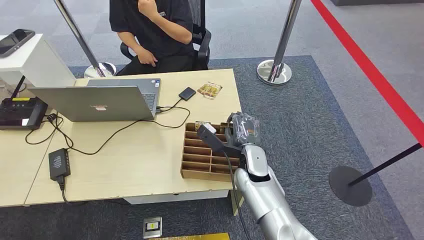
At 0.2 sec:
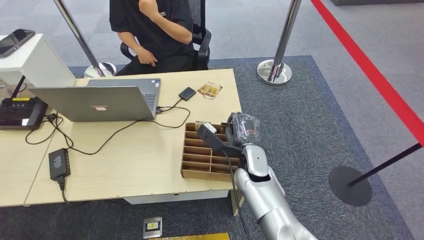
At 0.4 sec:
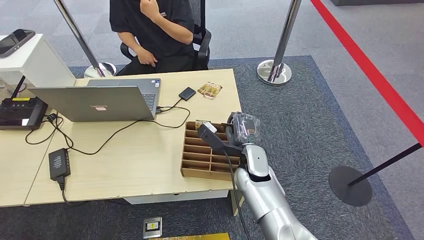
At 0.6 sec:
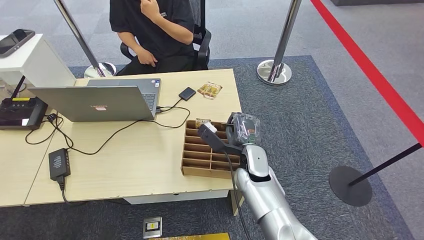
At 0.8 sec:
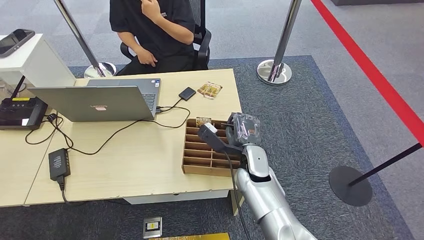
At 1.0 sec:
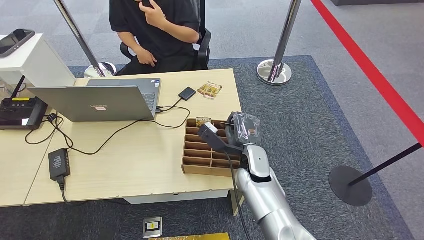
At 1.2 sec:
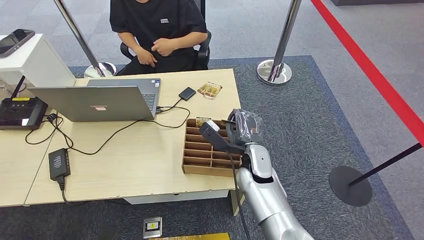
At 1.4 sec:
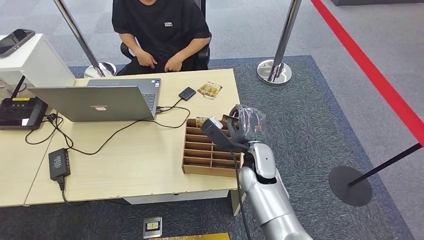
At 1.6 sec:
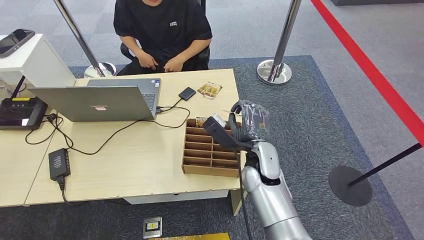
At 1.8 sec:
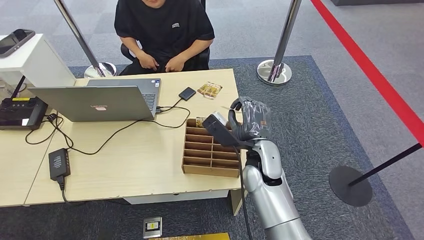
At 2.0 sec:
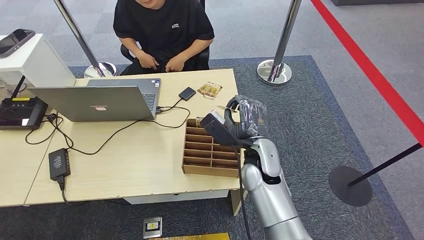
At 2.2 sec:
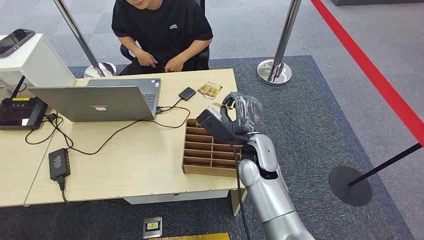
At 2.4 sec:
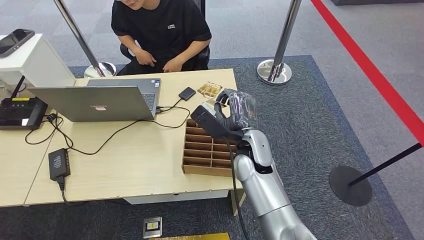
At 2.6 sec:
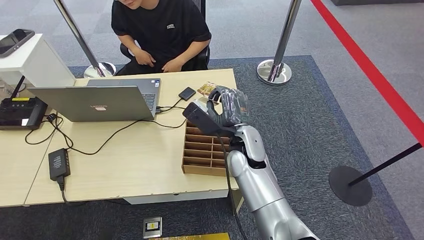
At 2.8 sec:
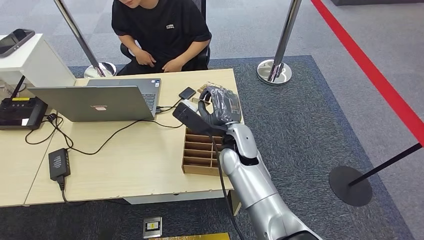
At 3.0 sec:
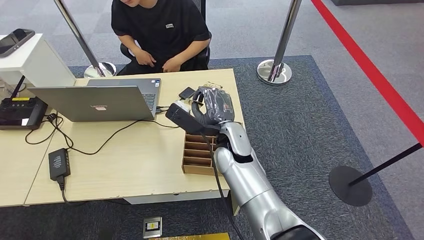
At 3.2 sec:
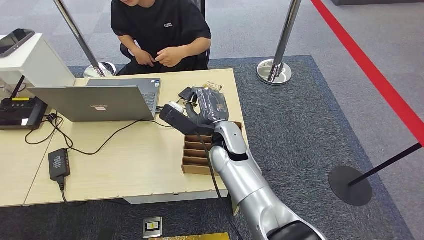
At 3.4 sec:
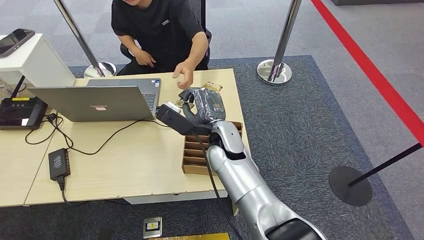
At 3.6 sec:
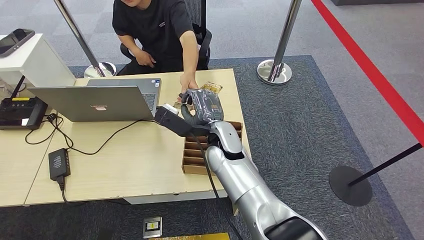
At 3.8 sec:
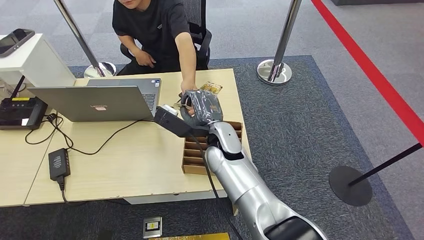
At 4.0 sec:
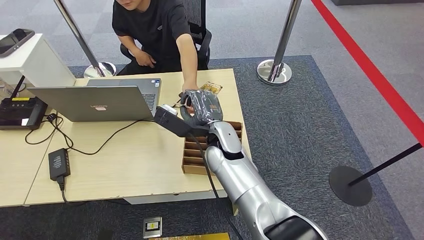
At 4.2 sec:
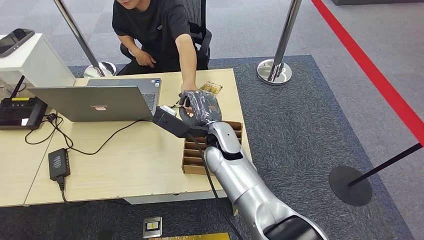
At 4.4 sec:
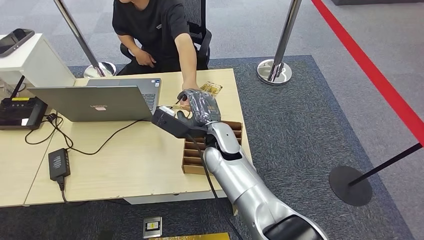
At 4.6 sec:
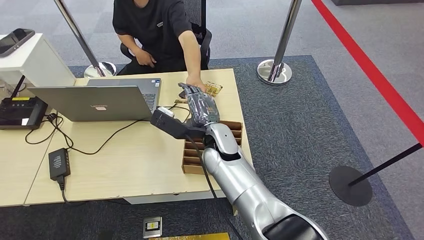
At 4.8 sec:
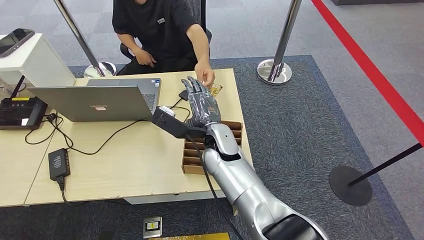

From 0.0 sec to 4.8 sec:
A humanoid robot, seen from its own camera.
Step, from 0.0 sec to 2.6 sec: Pick up the room card from the card holder.
Step, from 2.8 sec to 4.8 sec: Hand the room card to the target.
From 1.6 sec to 3.2 sec: The right hand is displaced to the left by some 5 cm.
From 3.2 sec to 4.8 sec: The hands move only a little.

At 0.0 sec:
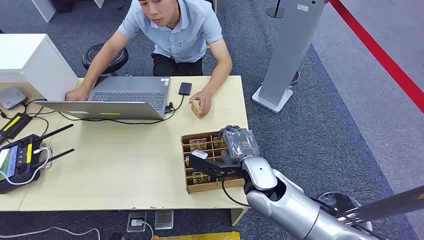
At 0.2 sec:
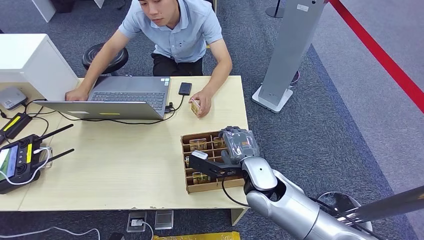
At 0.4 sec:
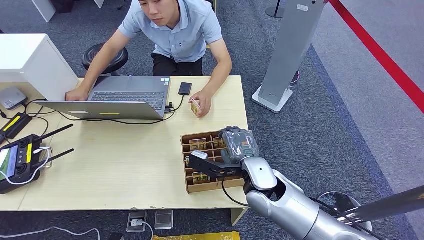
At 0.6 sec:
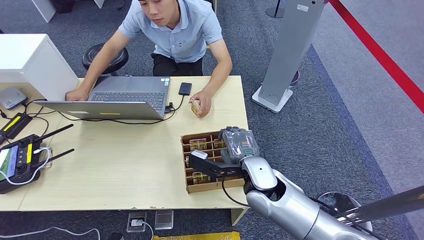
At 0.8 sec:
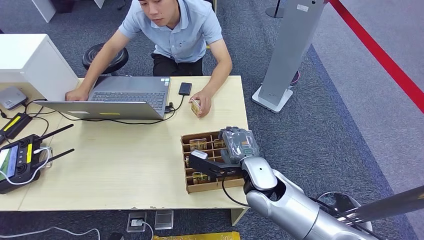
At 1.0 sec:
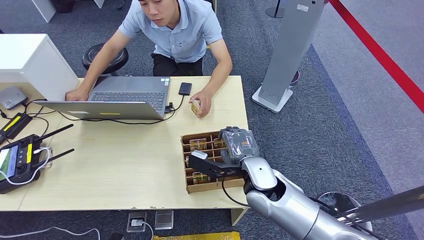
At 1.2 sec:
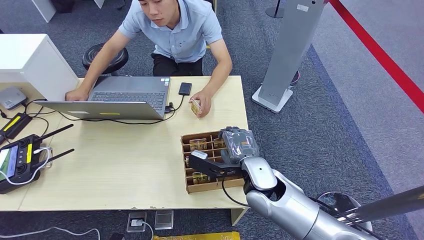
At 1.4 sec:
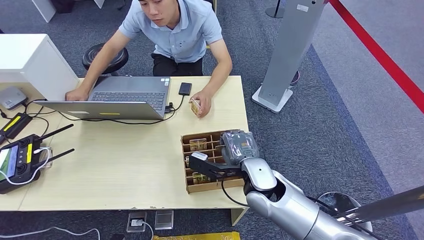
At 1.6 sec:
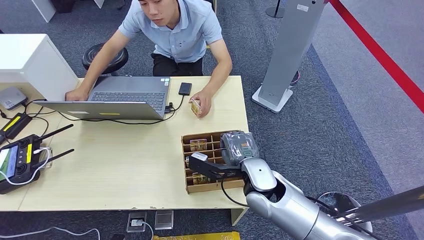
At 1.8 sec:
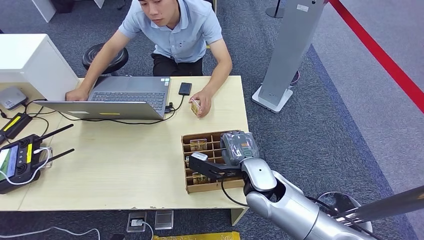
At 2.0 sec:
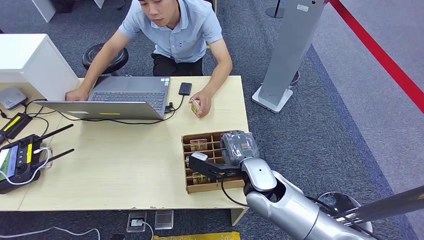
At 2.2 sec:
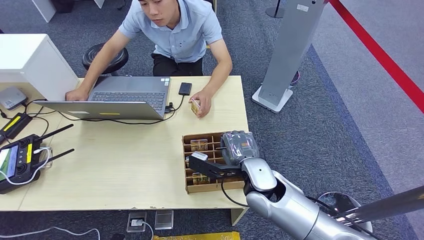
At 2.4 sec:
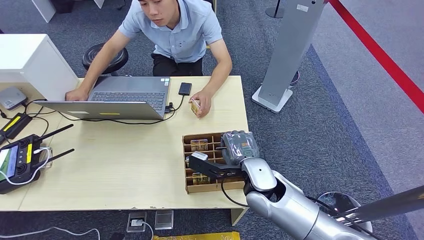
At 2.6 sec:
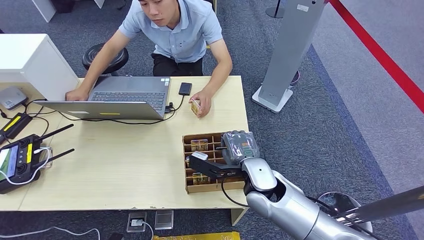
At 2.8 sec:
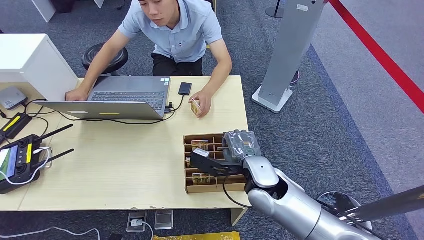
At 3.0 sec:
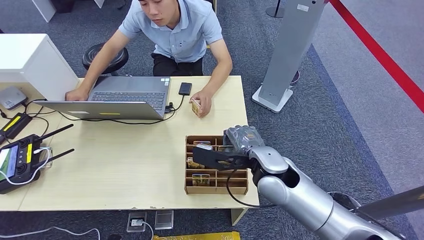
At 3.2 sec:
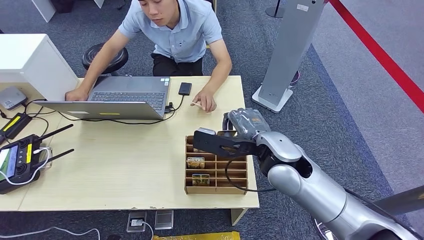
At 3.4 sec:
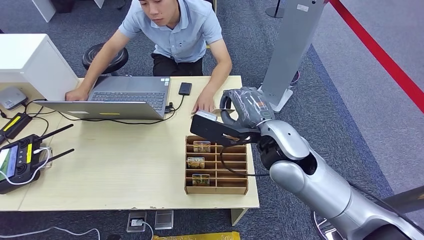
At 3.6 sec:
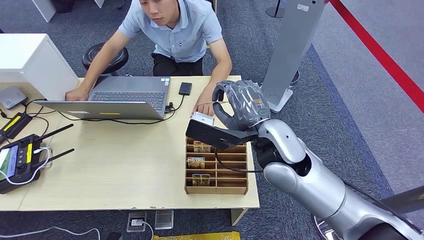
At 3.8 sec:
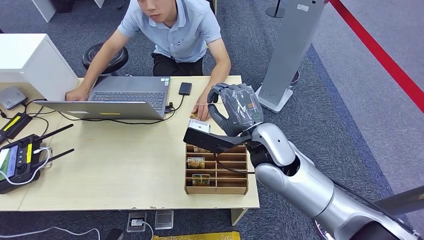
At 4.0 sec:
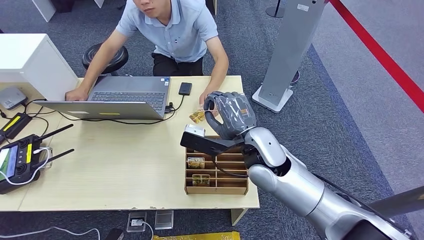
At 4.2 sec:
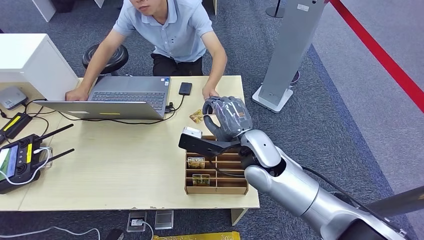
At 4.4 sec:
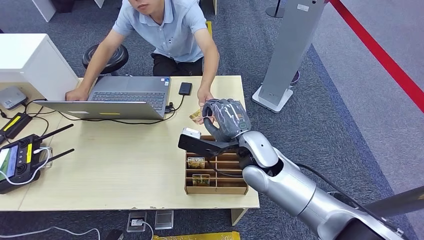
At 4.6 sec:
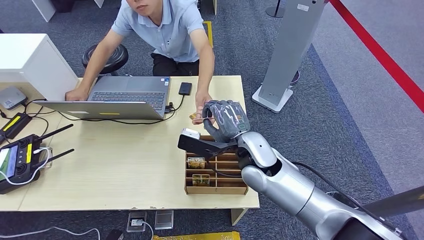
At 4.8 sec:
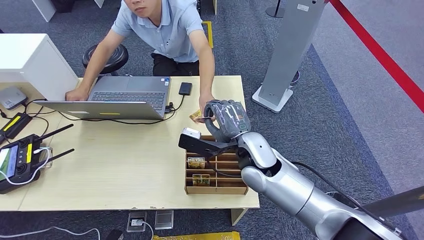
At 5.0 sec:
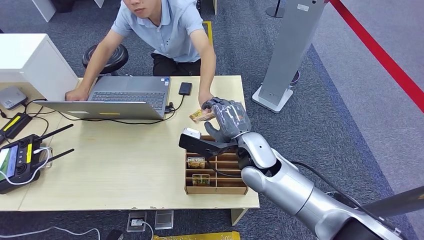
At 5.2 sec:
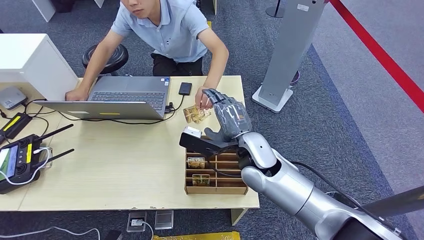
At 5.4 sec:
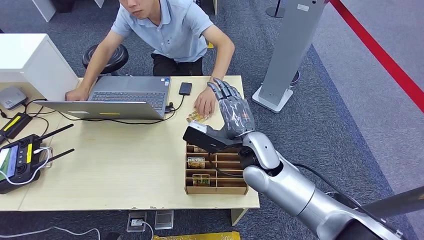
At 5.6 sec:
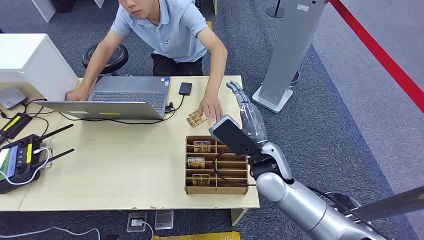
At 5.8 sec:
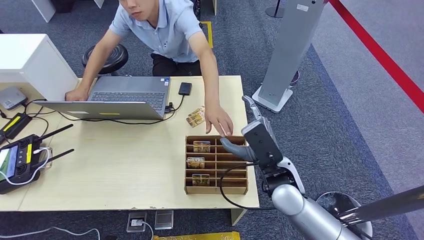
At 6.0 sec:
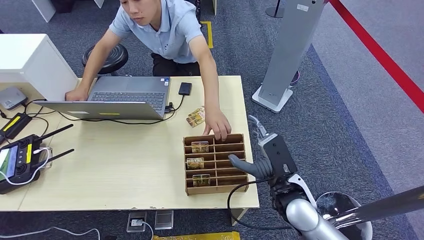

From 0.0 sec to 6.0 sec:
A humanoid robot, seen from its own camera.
Step, from 0.0 sec to 3.6 sec: Pick up the room card from the card holder.
Step, from 4.0 sec to 6.0 sec: Hand the room card to the target.
From 1.6 sec to 3.0 sec: The right hand shifts by roughly 5 cm.
From 3.0 sec to 4.4 sec: The right hand reaches approximately 10 cm upward, then returns.
From 4.4 sec to 6.0 sec: The right hand is displaced to the right, backward and downward by some 15 cm.

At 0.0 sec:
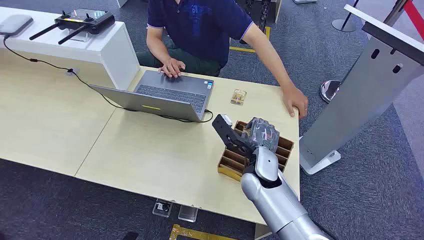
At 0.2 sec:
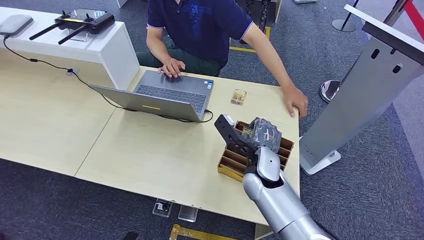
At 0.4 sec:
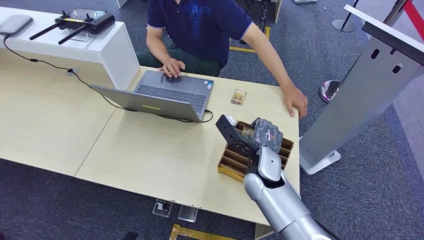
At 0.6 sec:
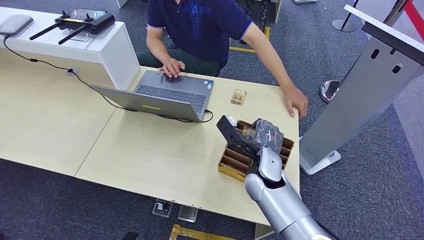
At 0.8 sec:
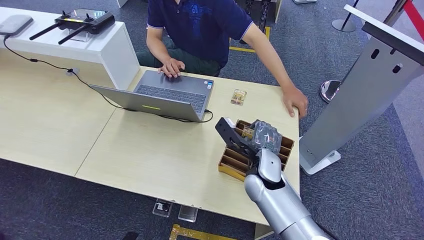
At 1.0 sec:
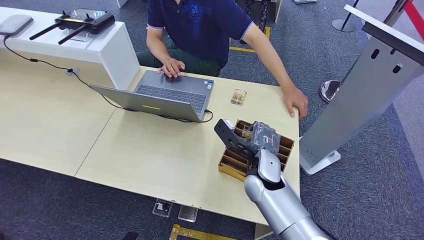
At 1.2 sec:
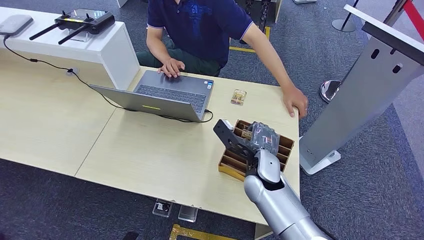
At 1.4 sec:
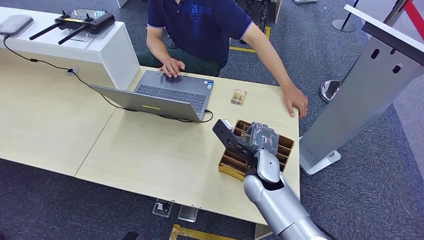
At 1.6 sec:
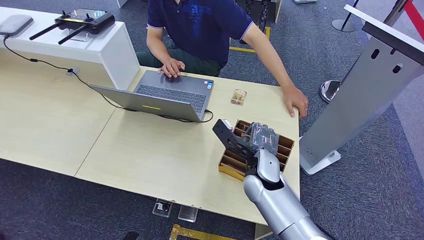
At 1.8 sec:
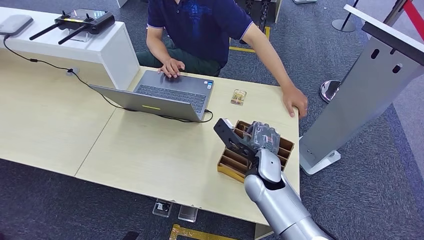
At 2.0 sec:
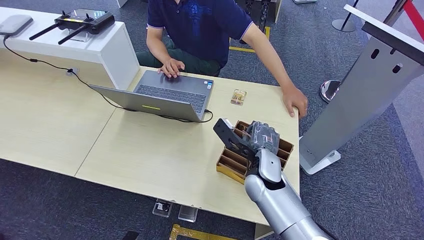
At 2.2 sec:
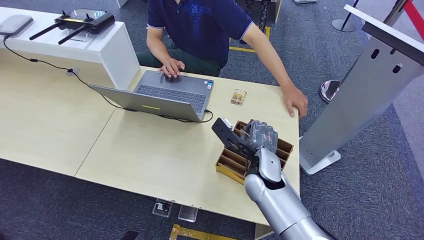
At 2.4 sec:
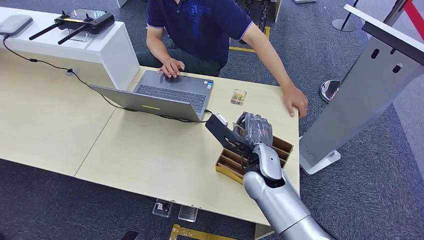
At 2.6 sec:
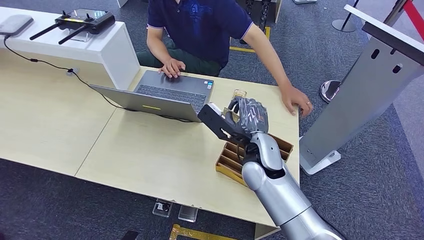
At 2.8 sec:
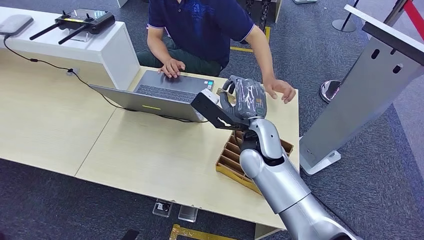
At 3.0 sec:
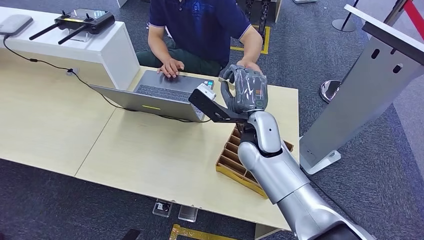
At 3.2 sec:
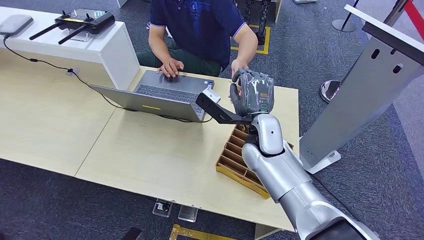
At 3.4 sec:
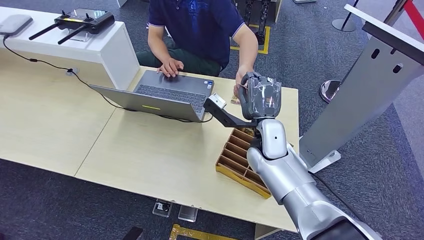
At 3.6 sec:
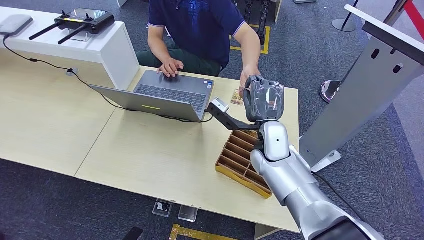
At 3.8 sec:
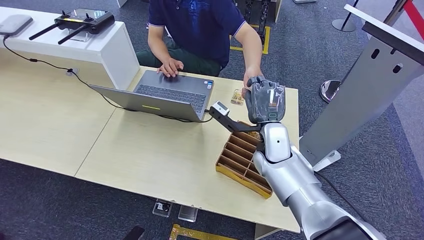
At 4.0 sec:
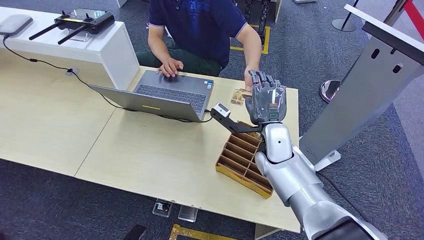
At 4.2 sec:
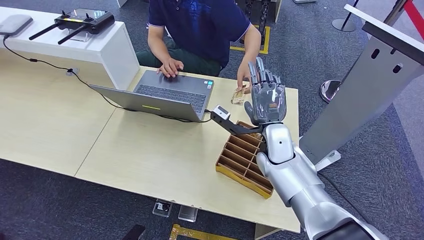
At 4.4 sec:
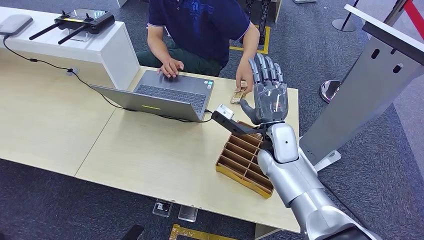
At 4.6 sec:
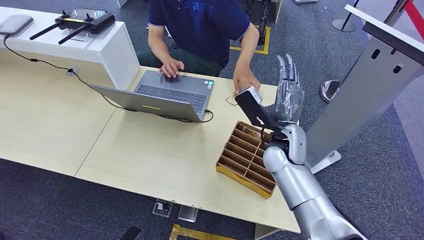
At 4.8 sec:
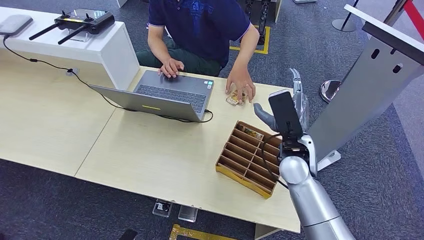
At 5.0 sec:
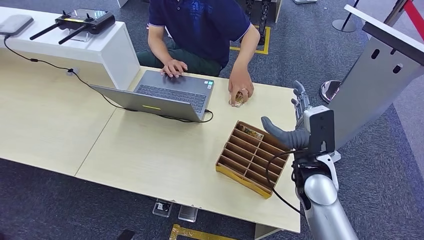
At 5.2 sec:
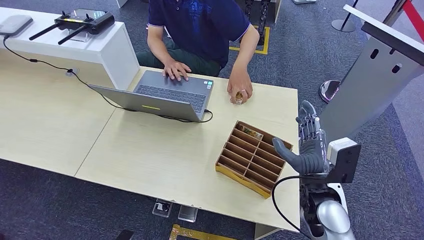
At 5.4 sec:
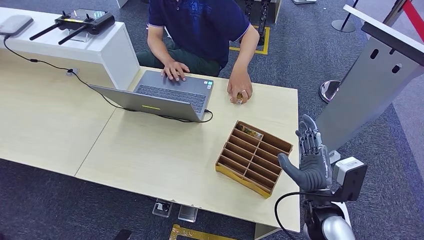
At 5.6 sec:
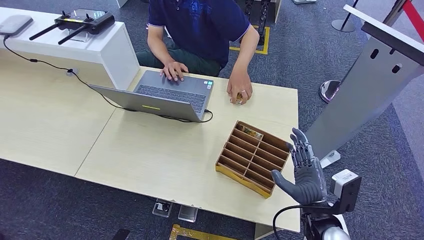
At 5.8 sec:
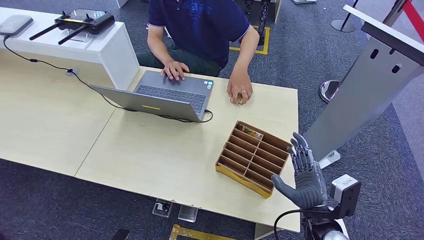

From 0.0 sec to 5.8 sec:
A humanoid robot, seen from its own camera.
Step, from 0.0 sec to 2.6 sec: Pick up the room card from the card holder.
Step, from 2.8 sec to 5.8 sec: Hand the room card to the target.
From 1.4 sec to 2.8 sec: The right hand goes roughly 10 cm upward.
From 2.8 sec to 4.4 sec: The right hand moves to the right, approximately 5 cm.
From 4.4 sec to 5.8 sec: The right hand shifts approximately 20 cm backward, to the right and downward.
